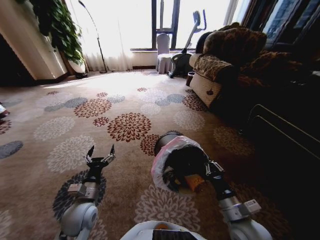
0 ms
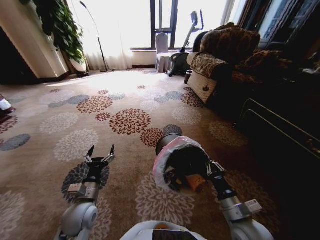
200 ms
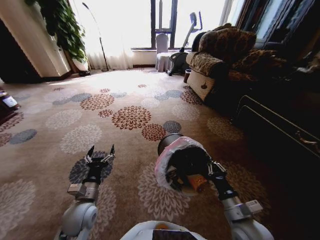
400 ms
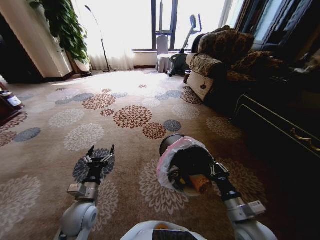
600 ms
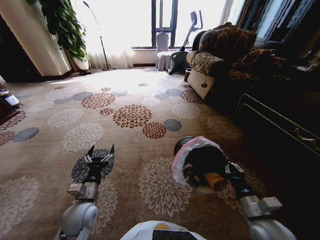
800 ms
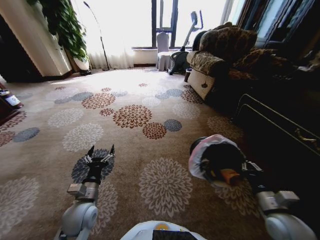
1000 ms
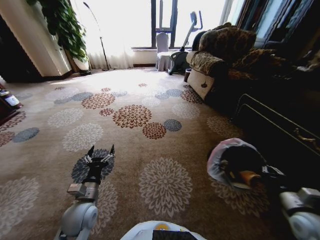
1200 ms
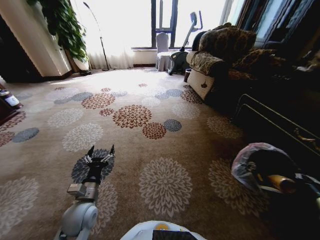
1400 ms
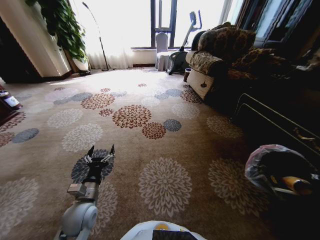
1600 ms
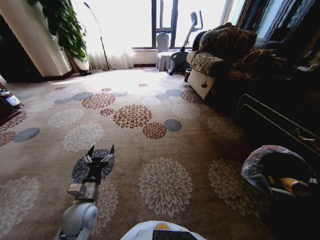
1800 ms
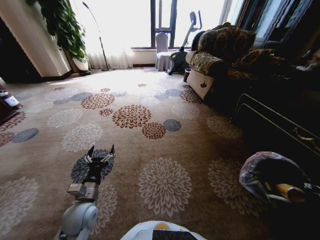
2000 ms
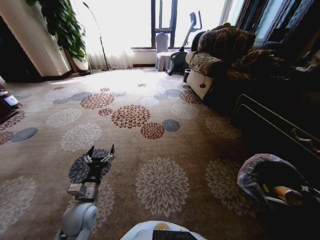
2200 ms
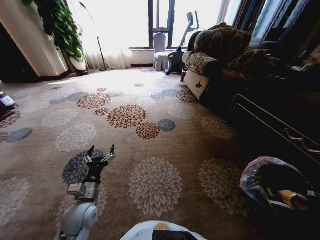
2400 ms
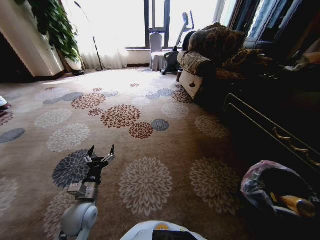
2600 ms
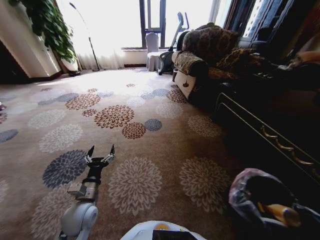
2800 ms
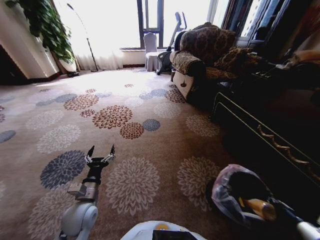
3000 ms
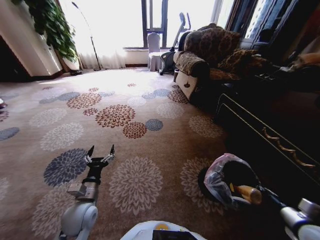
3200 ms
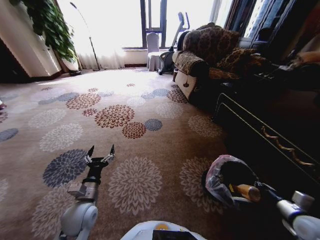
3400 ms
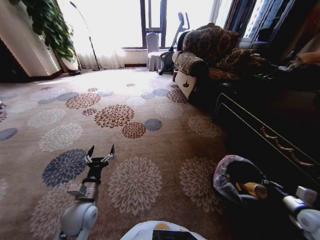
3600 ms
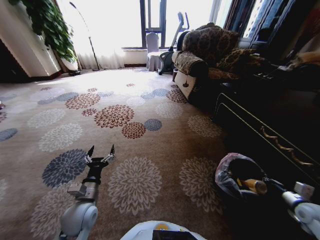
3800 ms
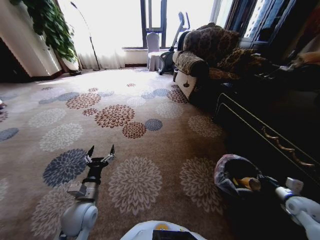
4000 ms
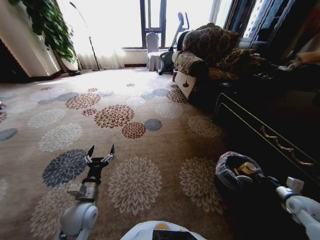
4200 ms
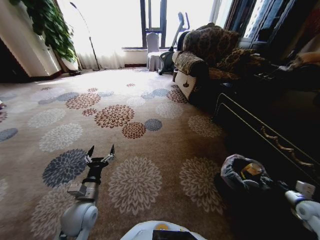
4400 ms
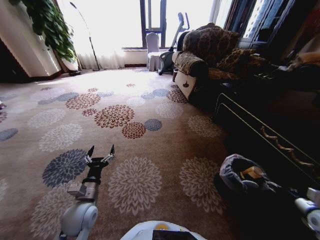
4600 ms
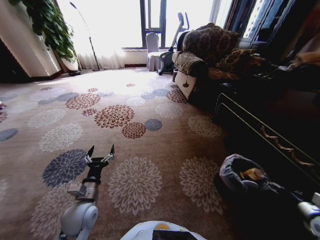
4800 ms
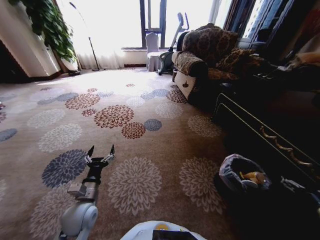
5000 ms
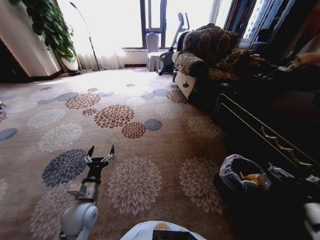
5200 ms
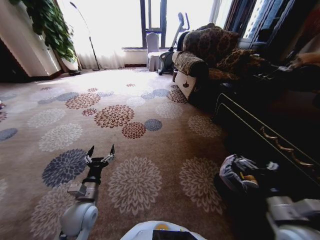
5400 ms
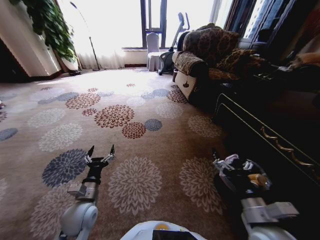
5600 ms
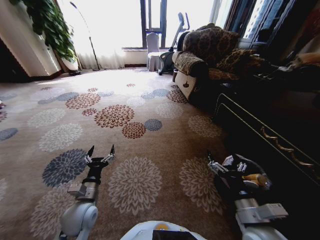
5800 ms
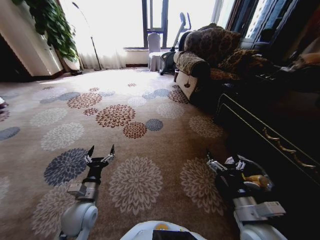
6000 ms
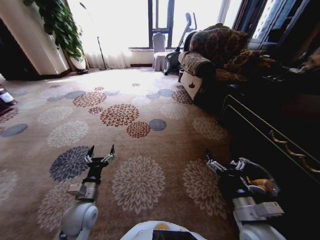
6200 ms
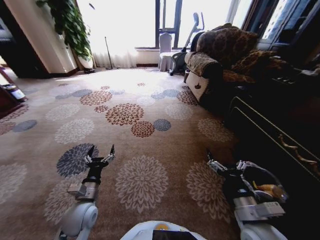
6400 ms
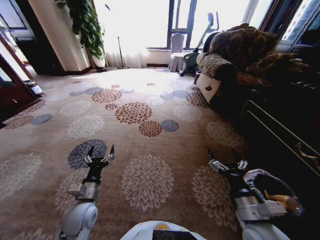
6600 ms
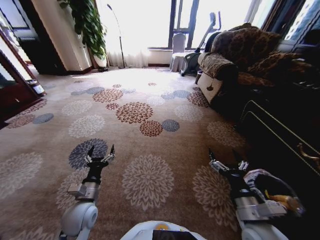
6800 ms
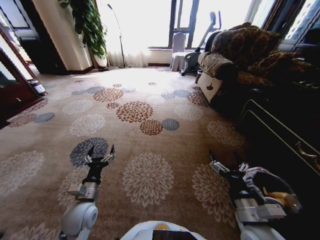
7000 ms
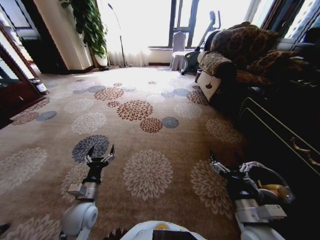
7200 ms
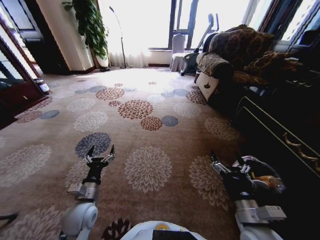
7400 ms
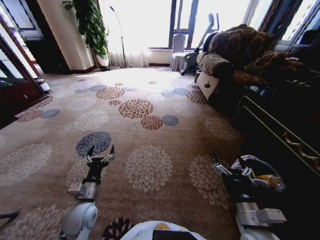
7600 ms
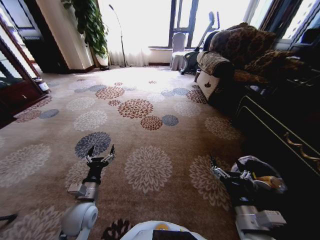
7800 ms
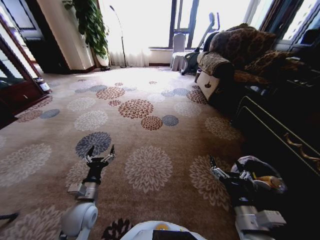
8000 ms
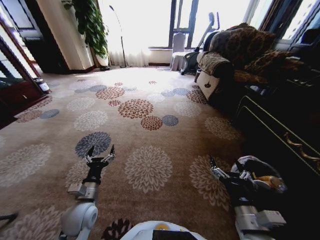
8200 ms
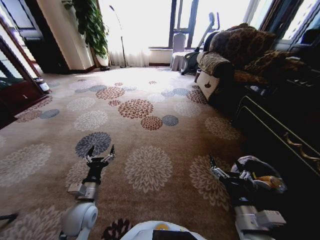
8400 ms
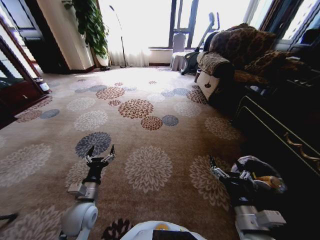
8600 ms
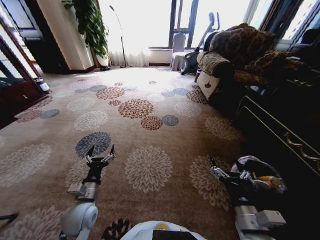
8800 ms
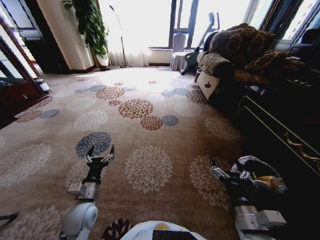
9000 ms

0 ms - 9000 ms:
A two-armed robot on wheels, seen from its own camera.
Task of the whole recording: Pick up the trash from the ground and place it into the trash bin.
0 ms - 1600 ms: The right gripper goes some 35 cm to the right.
1600 ms - 3000 ms: The right gripper travels to the left and backward by some 15 cm.
3000 ms - 4400 ms: The right gripper heads forward and to the right, covering about 15 cm, and opens its fingers.
4400 ms - 6000 ms: The right gripper shifts some 30 cm to the left, and opens.
7600 ms - 9000 ms: There are only small adjustments of the grippers.
